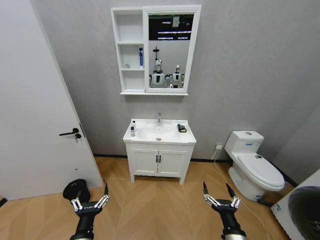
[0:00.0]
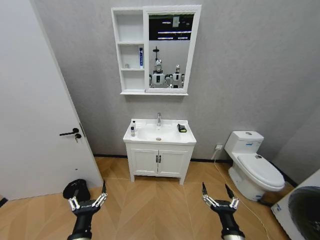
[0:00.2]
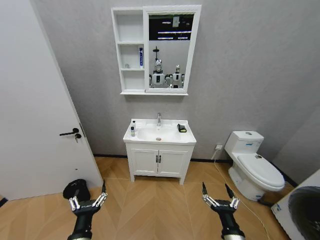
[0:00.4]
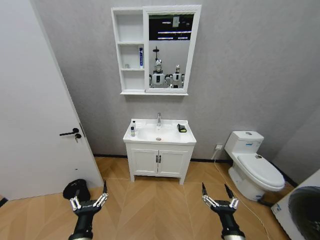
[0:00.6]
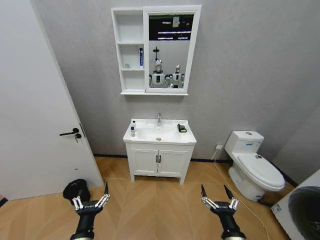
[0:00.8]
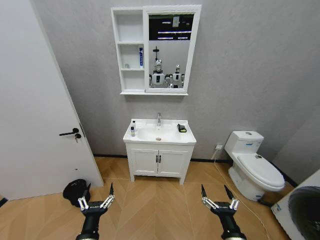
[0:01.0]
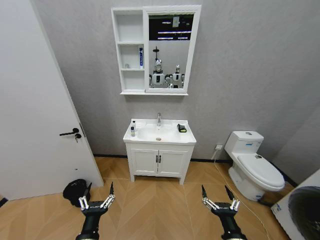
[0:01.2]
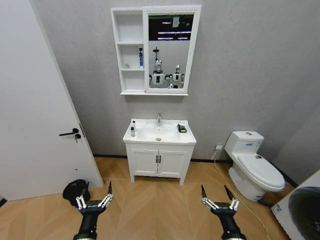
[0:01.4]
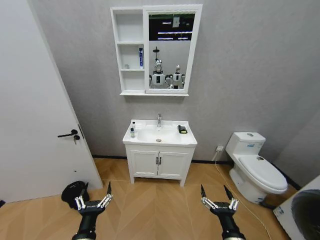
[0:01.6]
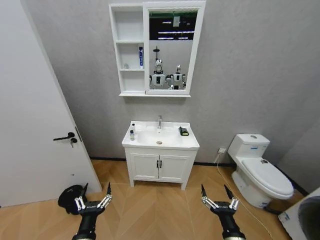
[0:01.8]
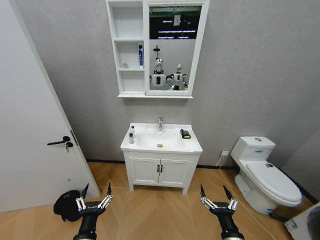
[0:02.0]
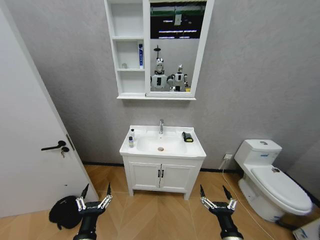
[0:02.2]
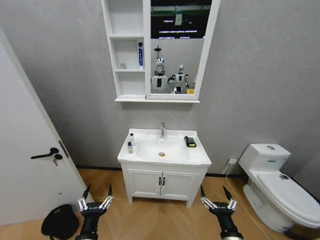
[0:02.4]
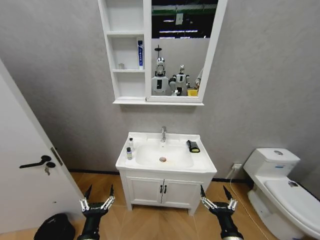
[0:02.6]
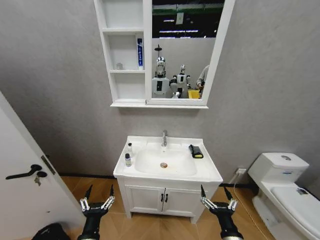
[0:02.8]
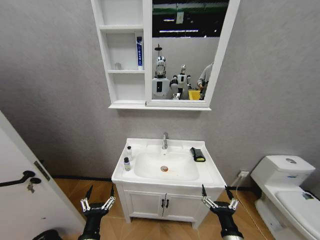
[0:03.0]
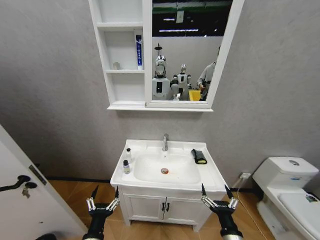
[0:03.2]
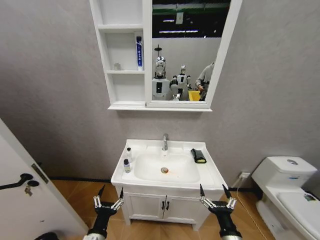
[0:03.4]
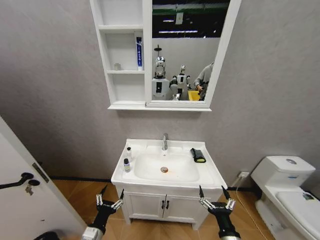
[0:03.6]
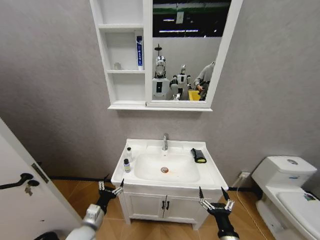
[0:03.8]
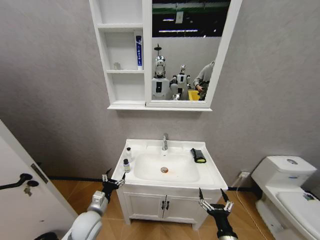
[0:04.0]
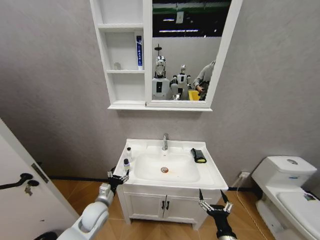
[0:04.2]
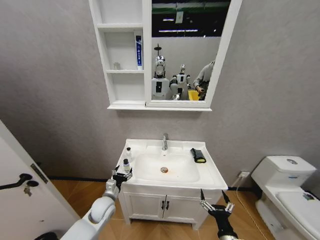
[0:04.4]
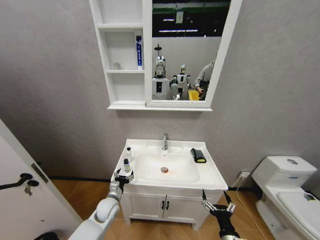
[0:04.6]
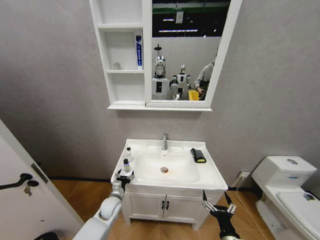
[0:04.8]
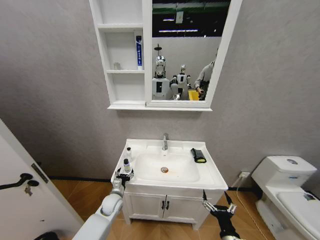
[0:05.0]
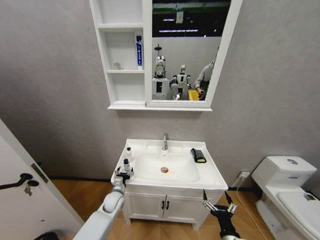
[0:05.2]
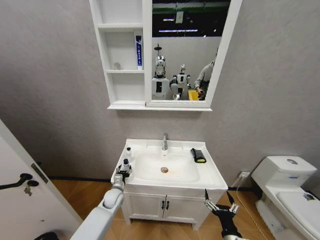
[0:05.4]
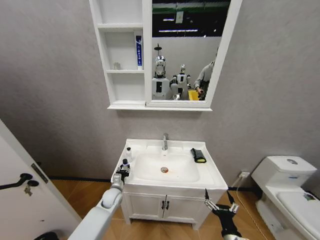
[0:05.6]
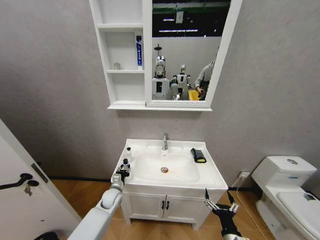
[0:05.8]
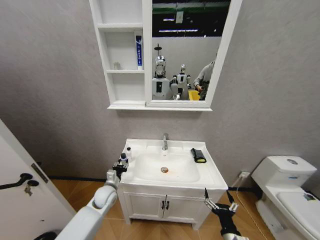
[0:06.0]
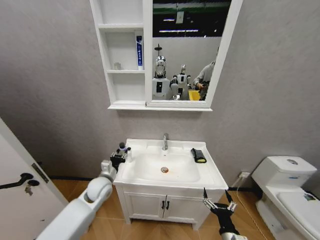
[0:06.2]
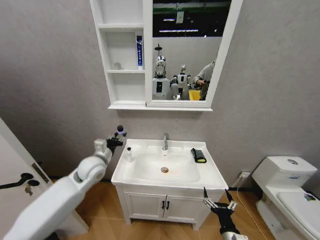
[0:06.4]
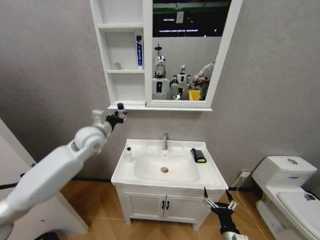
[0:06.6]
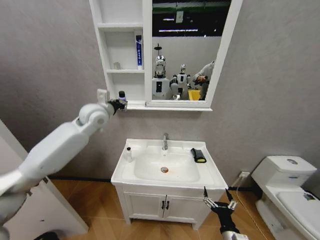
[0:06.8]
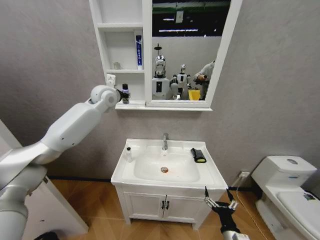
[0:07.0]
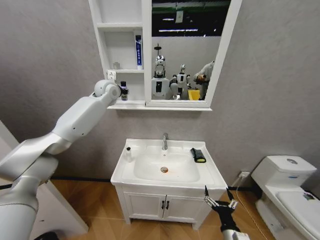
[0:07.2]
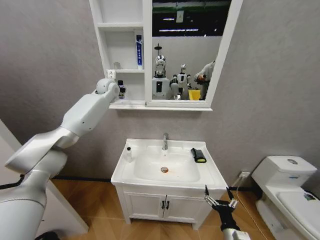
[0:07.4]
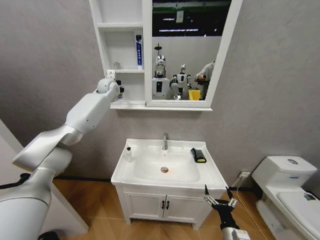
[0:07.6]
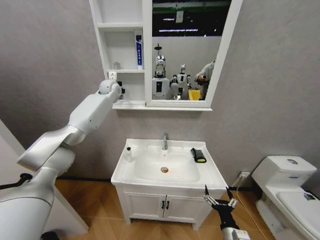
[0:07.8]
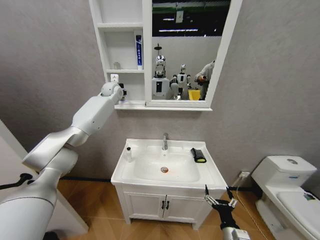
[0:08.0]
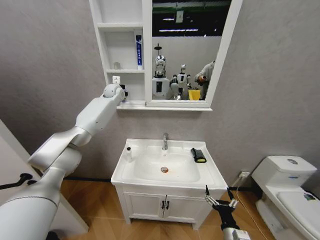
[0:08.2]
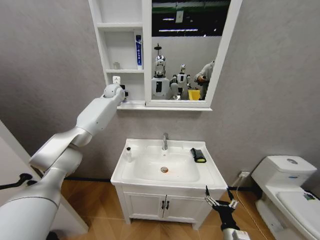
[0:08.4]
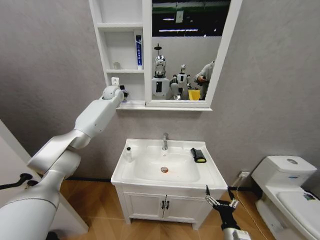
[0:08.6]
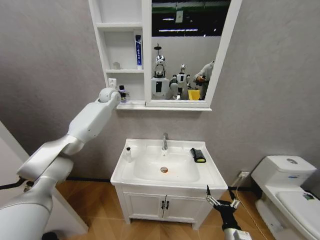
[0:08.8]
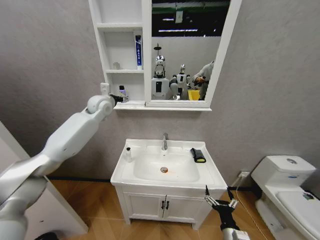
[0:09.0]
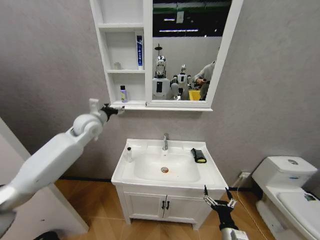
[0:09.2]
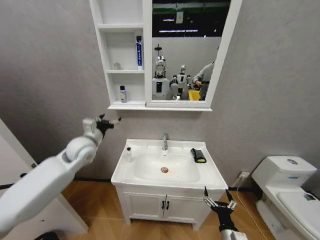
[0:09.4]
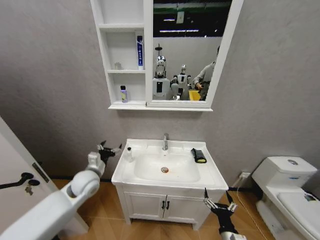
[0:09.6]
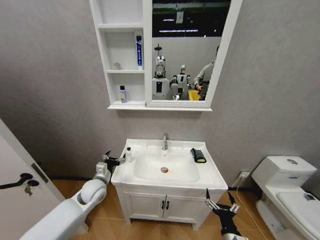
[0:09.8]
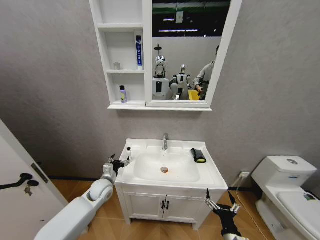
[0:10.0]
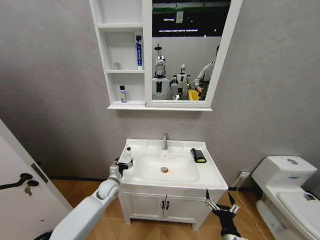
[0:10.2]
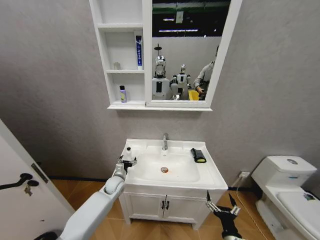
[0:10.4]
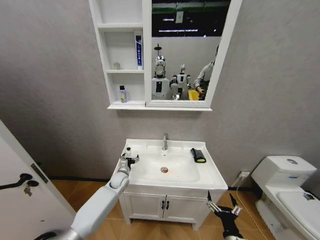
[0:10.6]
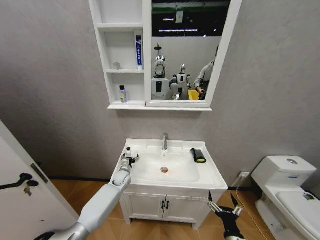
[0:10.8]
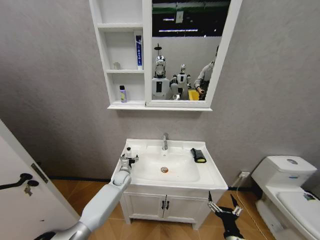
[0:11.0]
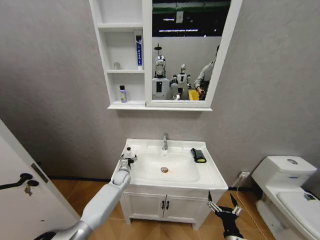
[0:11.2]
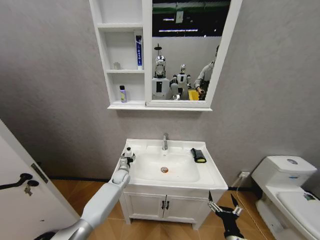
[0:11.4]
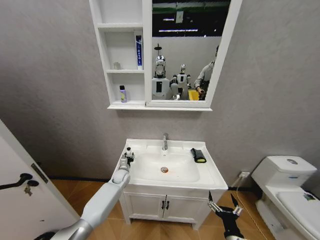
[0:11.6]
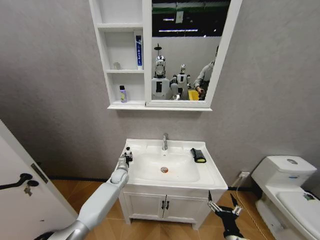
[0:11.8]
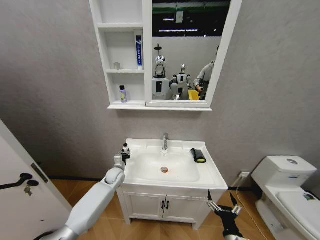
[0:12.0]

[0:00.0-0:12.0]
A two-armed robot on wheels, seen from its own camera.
Task of the whole recording: Move facial cleanser and shampoo from washbasin to cabinet, then wipe washbasin with towel.
0:03.0 to 0:04.4: The left gripper heads forward, covering approximately 20 cm.
0:04.4 to 0:06.0: The left gripper heads forward, covering approximately 5 cm, and closes its fingers.
0:06.0 to 0:07.6: The left gripper travels upward and forward by approximately 50 cm.
0:07.6 to 0:09.0: The left gripper is displaced backward and downward by roughly 10 cm, and opens up.
0:09.0 to 0:10.4: The left gripper travels downward by about 40 cm.
0:10.4 to 0:12.0: The left gripper closes up.

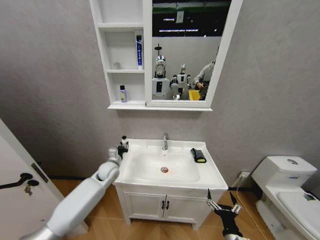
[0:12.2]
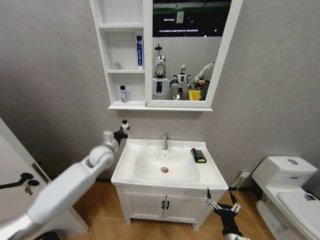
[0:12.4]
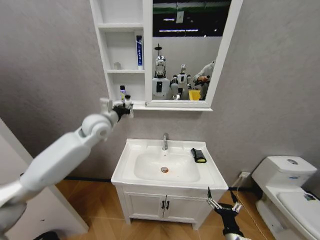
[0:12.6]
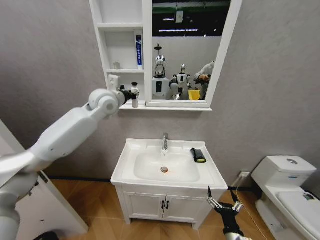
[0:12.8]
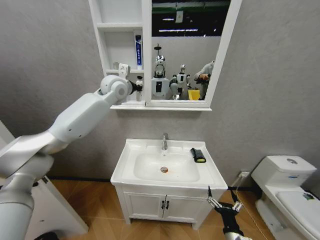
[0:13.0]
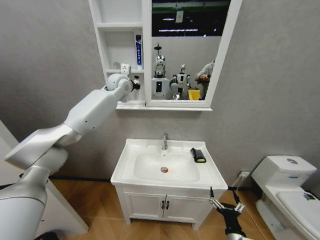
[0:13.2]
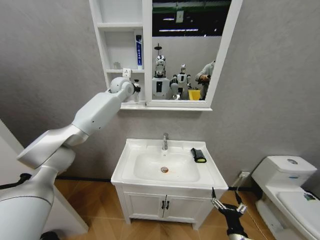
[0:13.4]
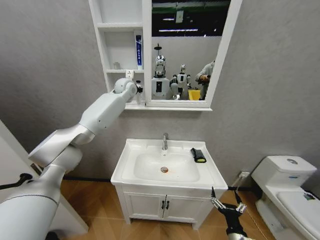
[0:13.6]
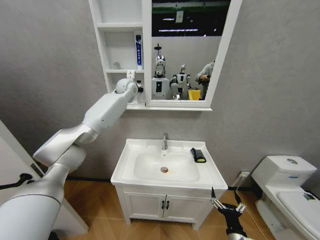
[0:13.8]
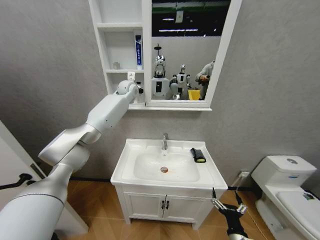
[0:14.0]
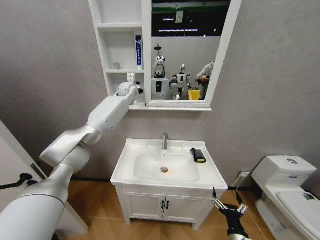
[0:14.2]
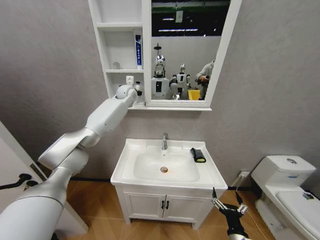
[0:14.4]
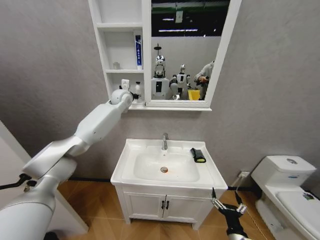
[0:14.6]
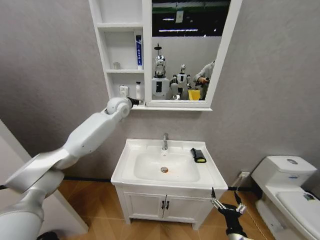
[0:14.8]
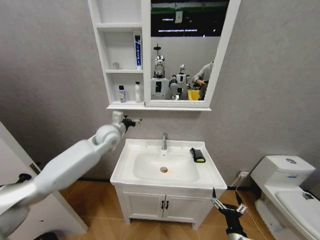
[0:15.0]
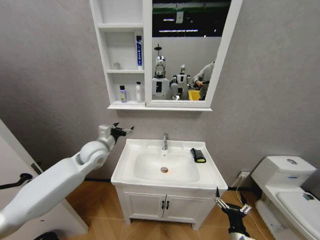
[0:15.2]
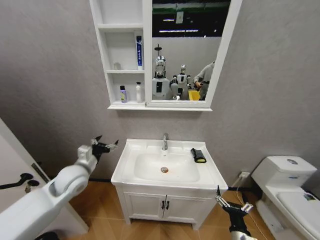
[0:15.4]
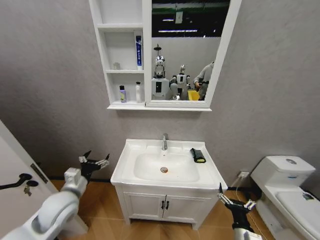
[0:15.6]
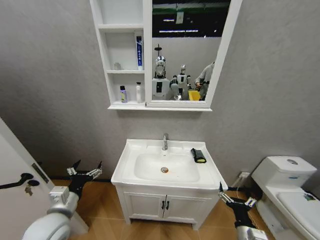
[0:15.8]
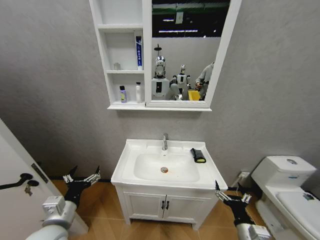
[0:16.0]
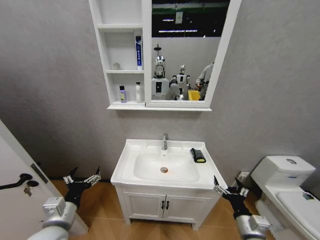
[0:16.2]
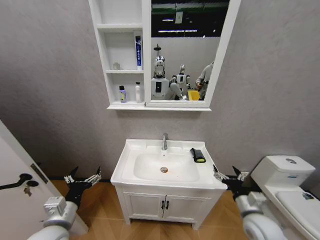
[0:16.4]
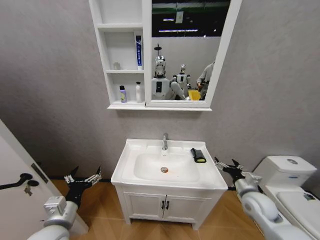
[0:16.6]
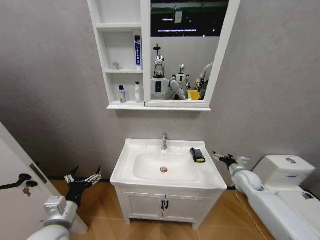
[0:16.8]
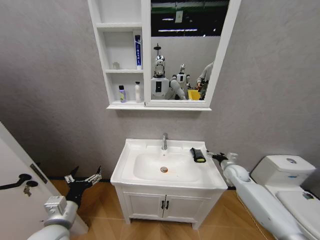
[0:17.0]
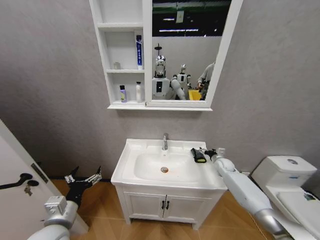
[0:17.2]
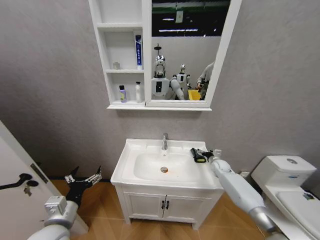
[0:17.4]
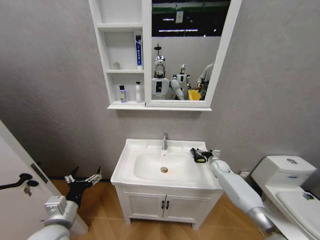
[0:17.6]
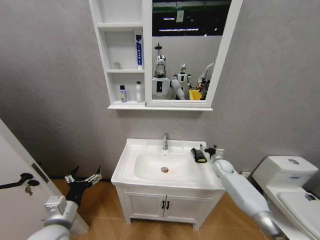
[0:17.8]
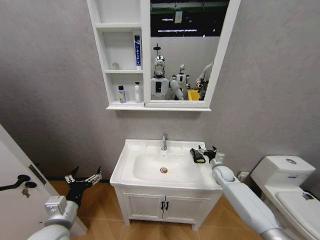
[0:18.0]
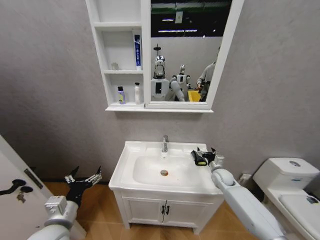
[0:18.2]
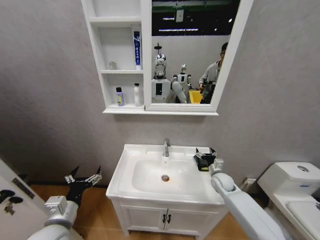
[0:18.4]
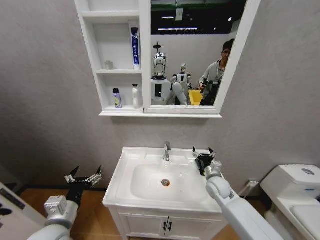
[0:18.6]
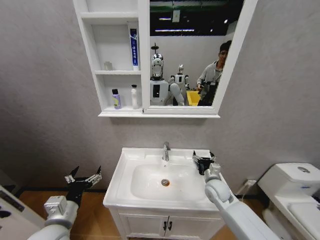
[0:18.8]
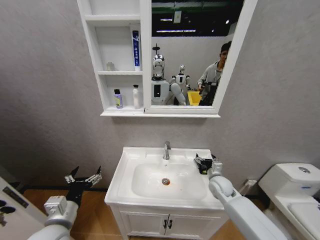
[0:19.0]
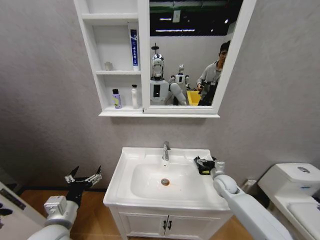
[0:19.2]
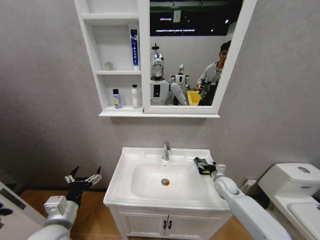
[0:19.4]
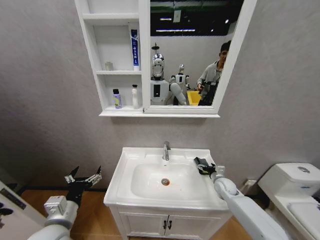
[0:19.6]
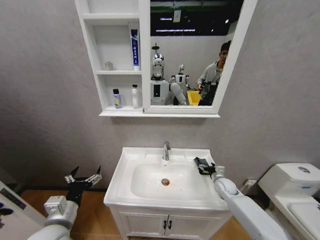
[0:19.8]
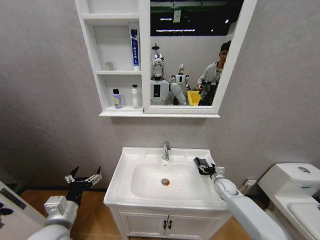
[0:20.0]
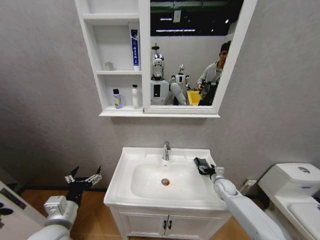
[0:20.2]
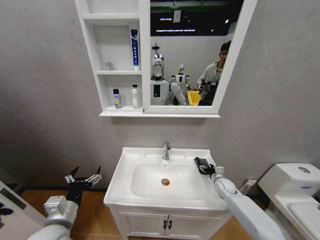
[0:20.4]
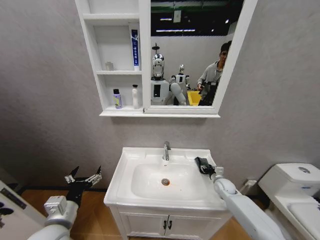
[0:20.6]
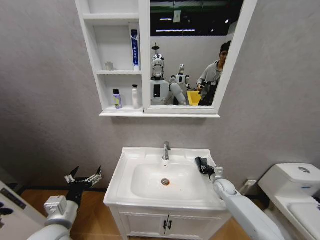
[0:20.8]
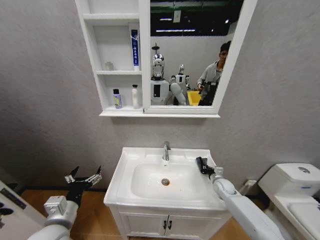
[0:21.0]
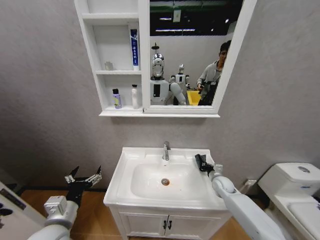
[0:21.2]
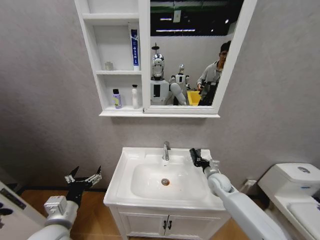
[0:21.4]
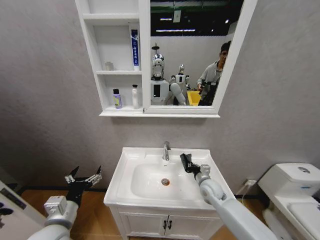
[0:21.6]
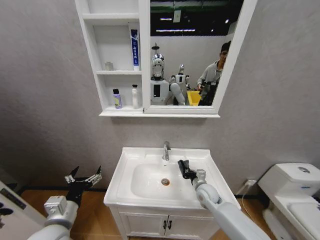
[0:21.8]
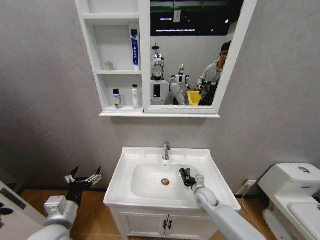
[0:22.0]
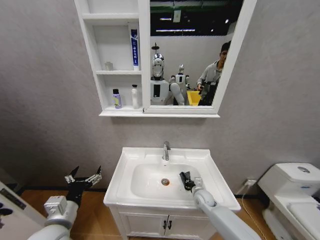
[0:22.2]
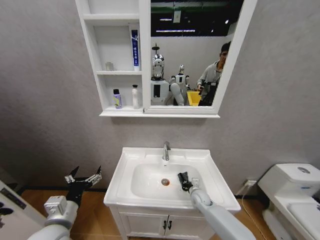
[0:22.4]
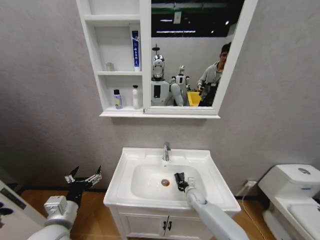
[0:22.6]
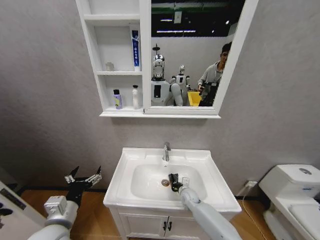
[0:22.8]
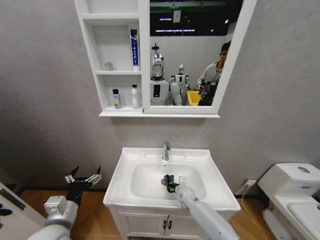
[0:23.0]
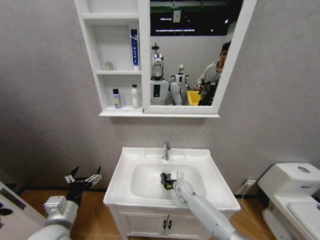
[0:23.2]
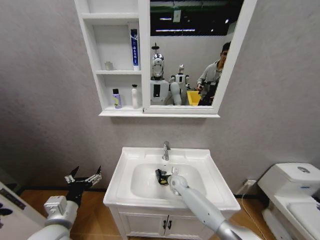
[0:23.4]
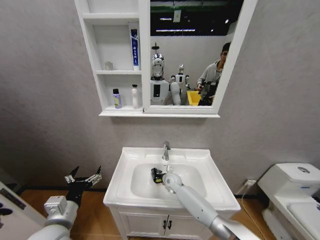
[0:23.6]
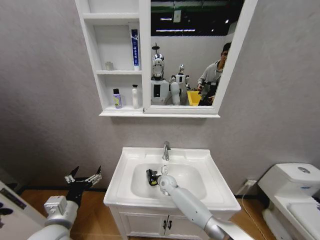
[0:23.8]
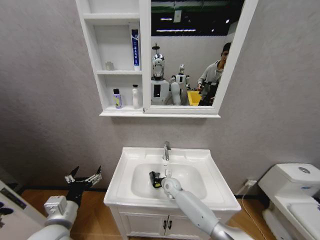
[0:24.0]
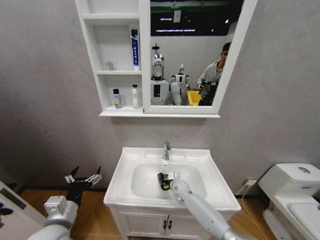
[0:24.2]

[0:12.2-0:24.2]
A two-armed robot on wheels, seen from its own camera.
Task of the whole recording: Move facial cleanser and shampoo from washbasin to cabinet, then wipe washbasin with towel.
0:12.2 to 0:13.8: The left gripper heads upward and forward, covering approximately 40 cm.
0:13.8 to 0:15.2: The left gripper shifts about 35 cm backward, downward and to the left, and opens.
0:15.2 to 0:16.6: The right gripper heads forward, upward and to the right, covering roughly 25 cm. Meanwhile the left gripper travels backward by roughly 25 cm.
0:16.6 to 0:18.2: The right gripper heads forward and downward, covering some 15 cm.
0:18.2 to 0:19.8: The right gripper travels to the left and back again, roughly 10 cm each way.
0:19.8 to 0:21.2: The right gripper closes.
0:21.2 to 0:22.6: The right gripper is displaced to the left and downward by roughly 15 cm.
0:22.6 to 0:24.2: The right gripper travels to the left by roughly 10 cm.
